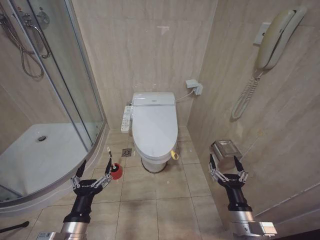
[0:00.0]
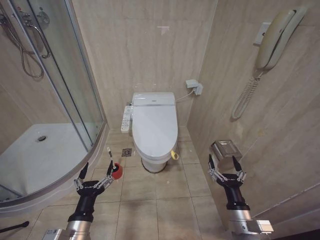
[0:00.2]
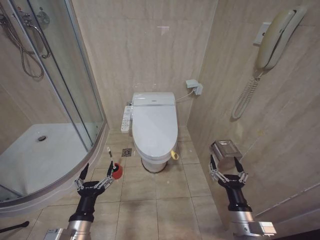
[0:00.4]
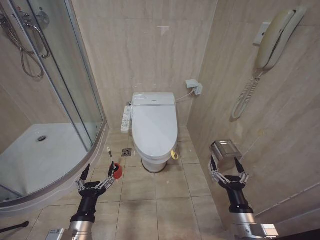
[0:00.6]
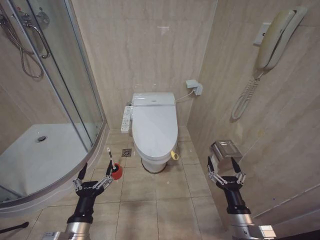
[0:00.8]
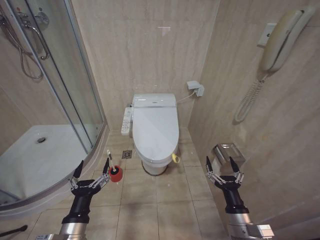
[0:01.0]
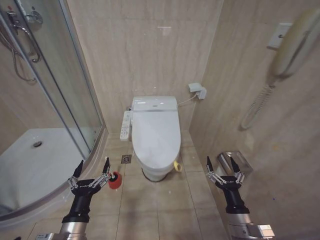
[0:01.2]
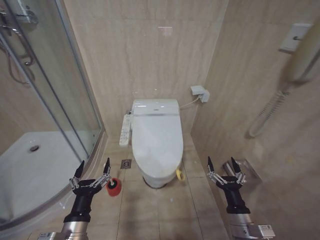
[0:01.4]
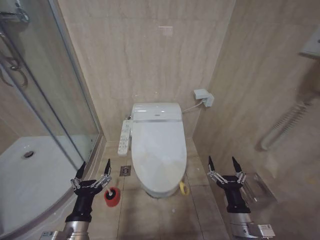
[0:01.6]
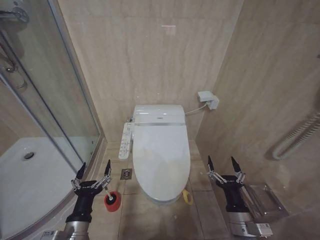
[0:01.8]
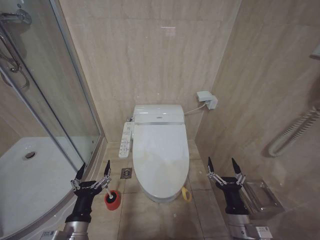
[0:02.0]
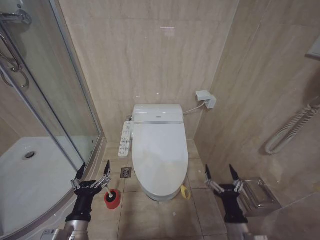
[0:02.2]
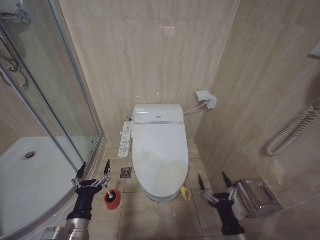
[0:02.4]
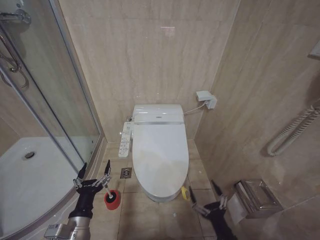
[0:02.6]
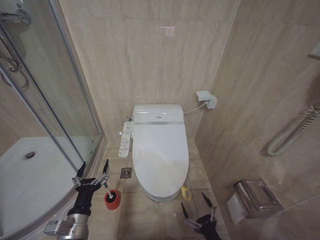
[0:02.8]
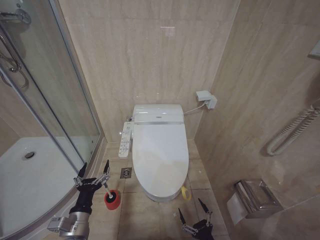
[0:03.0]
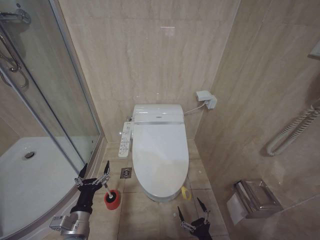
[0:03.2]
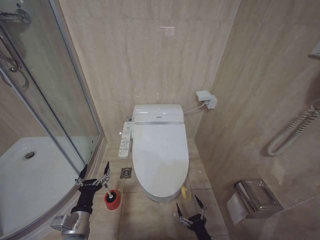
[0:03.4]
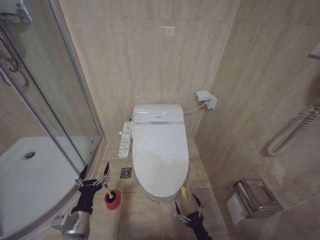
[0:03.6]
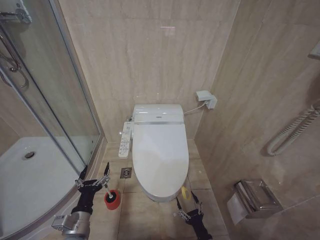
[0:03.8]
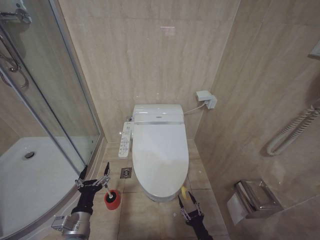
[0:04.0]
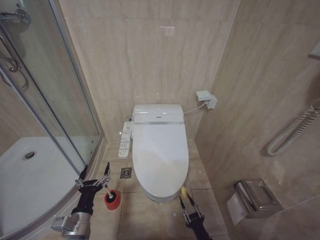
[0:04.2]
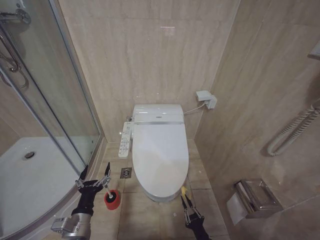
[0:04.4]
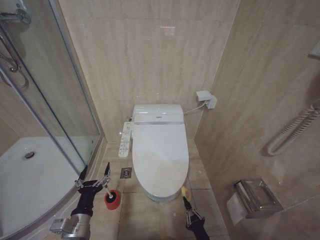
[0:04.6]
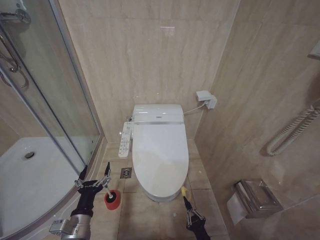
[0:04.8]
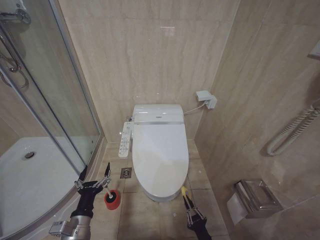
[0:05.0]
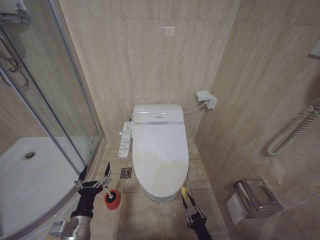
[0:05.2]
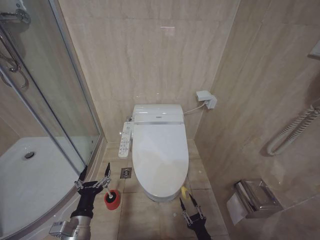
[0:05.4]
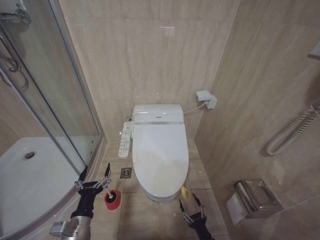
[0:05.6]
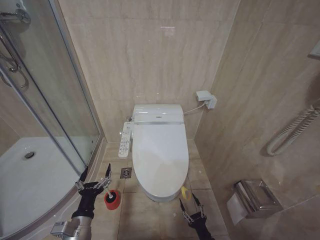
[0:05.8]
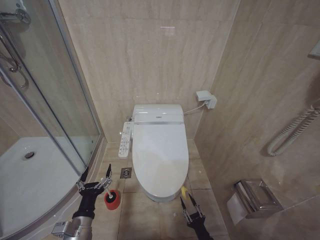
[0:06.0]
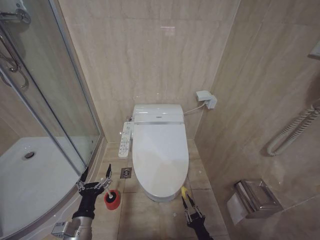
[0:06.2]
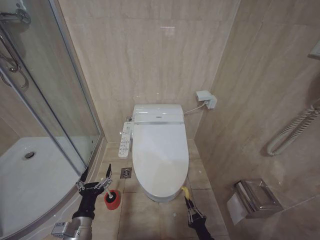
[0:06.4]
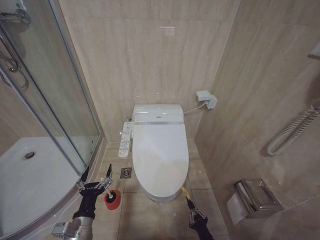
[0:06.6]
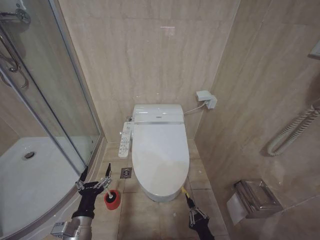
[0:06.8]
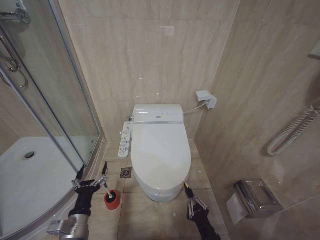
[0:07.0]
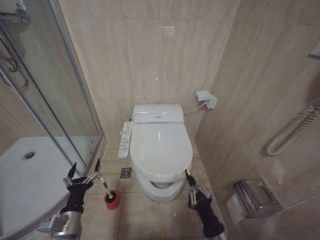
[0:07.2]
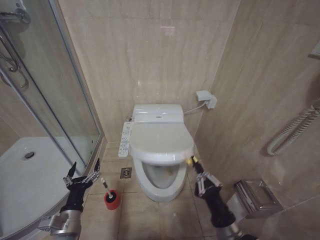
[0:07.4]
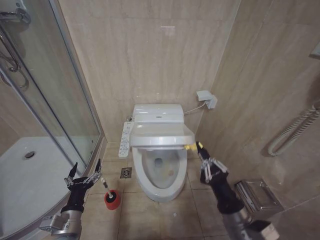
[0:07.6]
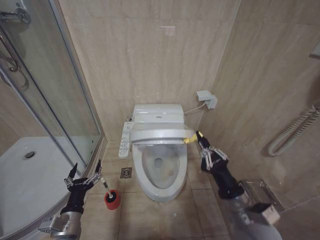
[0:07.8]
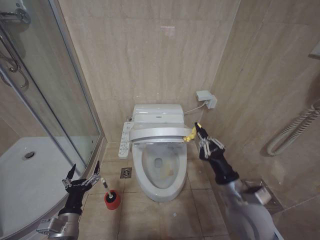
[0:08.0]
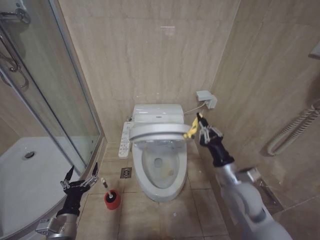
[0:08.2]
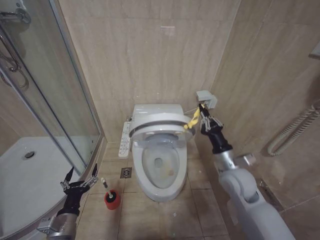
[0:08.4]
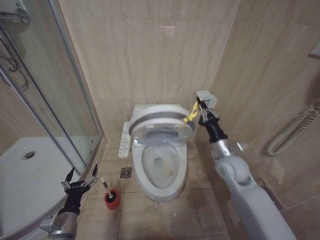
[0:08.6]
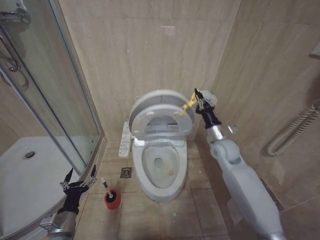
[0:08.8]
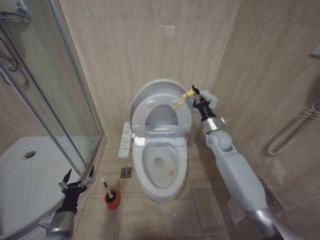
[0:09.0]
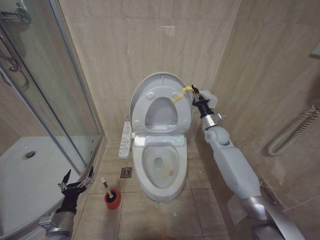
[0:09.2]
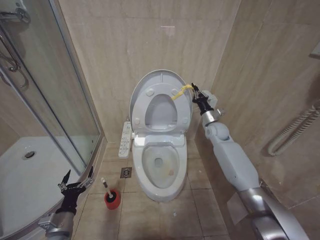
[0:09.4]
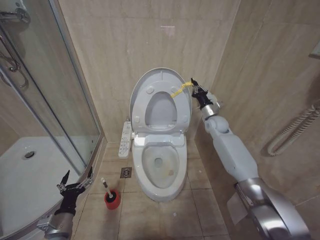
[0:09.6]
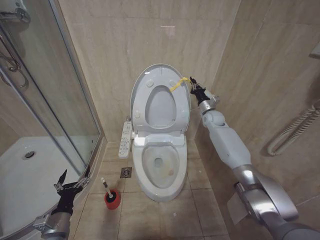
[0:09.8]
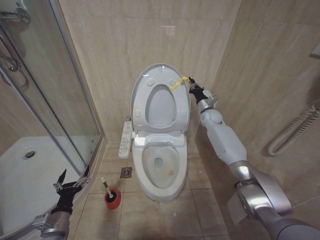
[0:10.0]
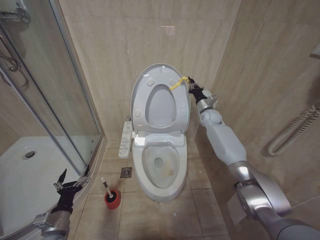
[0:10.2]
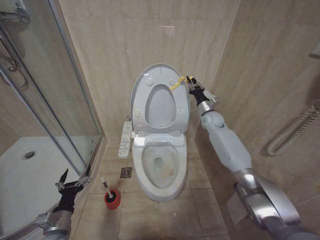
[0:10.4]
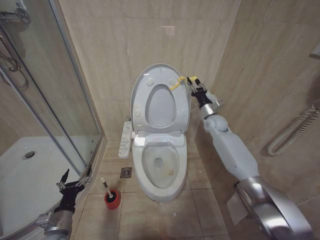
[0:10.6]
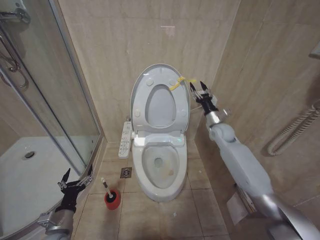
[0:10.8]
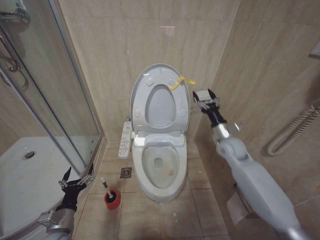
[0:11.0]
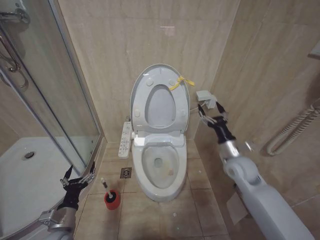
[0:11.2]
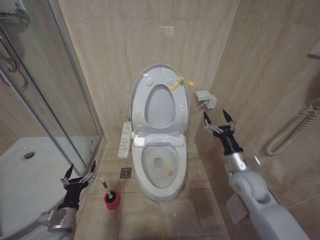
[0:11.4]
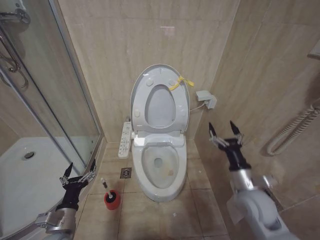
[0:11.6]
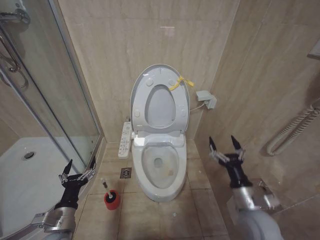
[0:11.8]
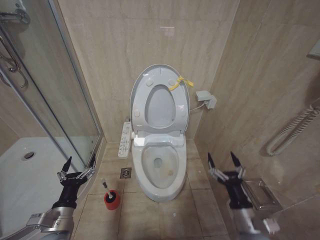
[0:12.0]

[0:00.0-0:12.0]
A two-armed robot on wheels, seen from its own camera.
Task of the whole recording: Open the toilet lid, clean the toilet bowl with a toilet brush, close the toilet lid, and flush.
0:01.6 to 0:03.0: The left gripper ends up about 5 cm from where it was, while the right gripper is displaced downward and backward by about 15 cm.
0:03.0 to 0:04.4: The right gripper shifts some 5 cm downward, and closes up.
0:06.0 to 0:07.6: The right gripper is displaced upward by approximately 25 cm, and closes up.
0:07.6 to 0:09.0: The left gripper moves some 5 cm, while the right gripper heads forward, covering approximately 30 cm.
0:09.0 to 0:10.4: The right gripper travels forward by about 15 cm.
0:10.4 to 0:12.0: The left gripper is displaced upward by some 5 cm. Meanwhile the right gripper is displaced backward by some 40 cm, and opens.

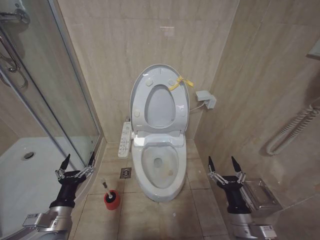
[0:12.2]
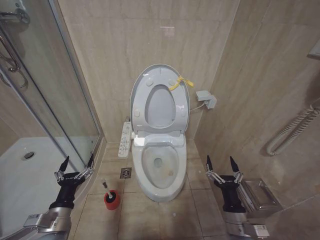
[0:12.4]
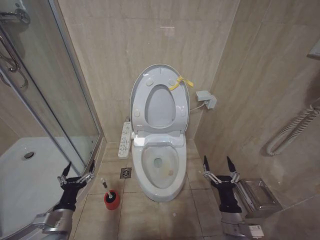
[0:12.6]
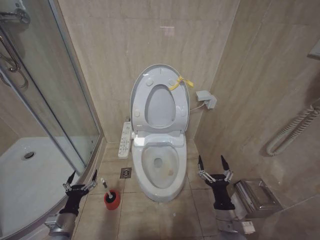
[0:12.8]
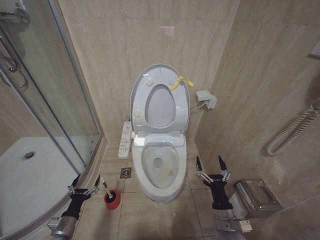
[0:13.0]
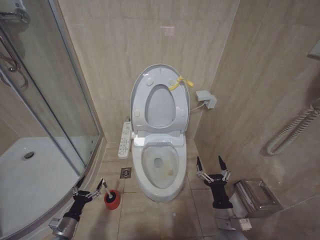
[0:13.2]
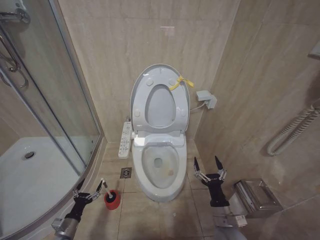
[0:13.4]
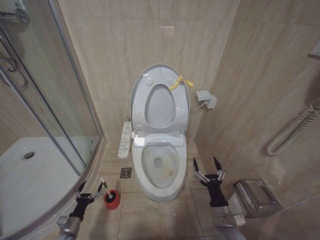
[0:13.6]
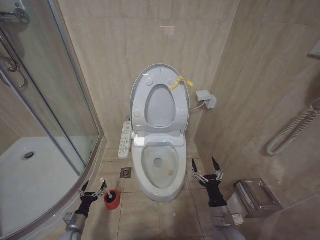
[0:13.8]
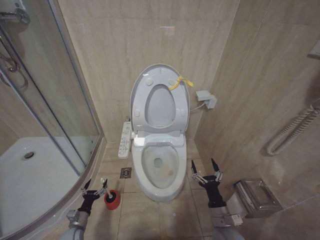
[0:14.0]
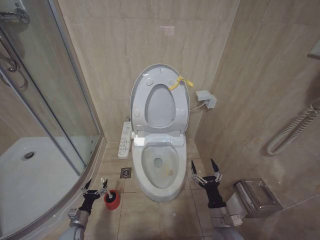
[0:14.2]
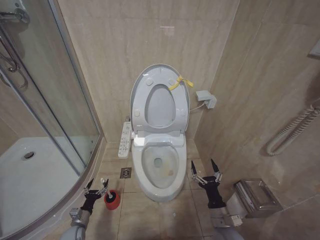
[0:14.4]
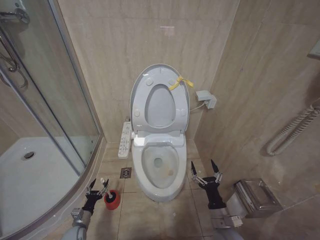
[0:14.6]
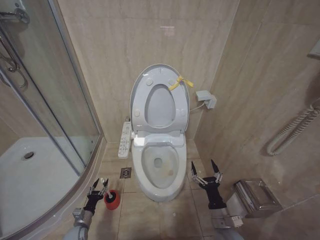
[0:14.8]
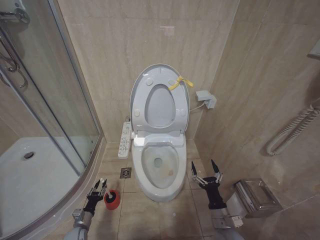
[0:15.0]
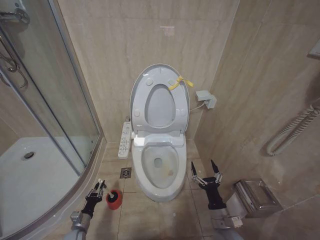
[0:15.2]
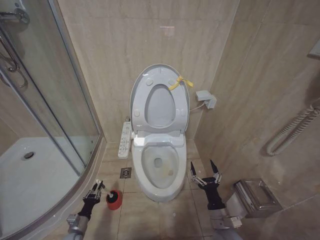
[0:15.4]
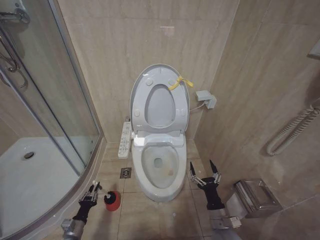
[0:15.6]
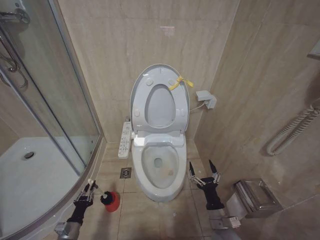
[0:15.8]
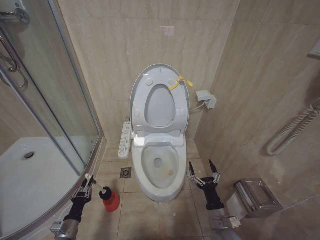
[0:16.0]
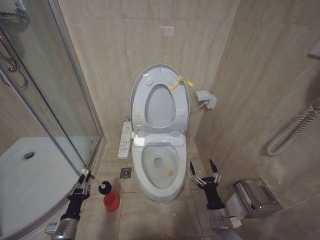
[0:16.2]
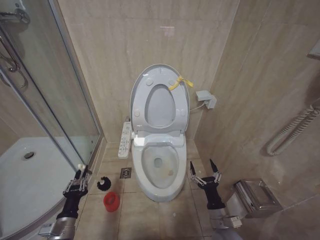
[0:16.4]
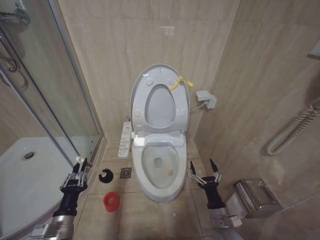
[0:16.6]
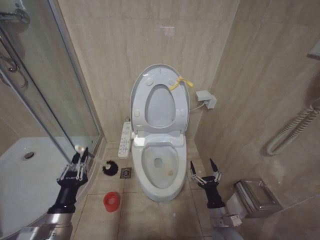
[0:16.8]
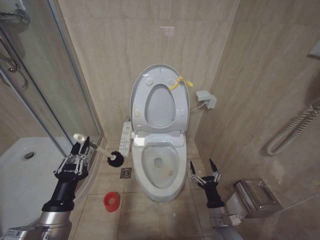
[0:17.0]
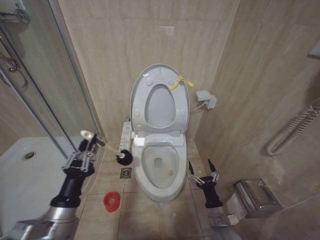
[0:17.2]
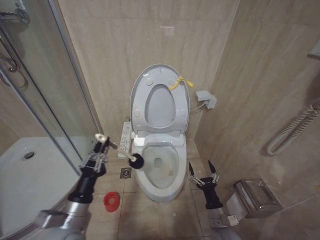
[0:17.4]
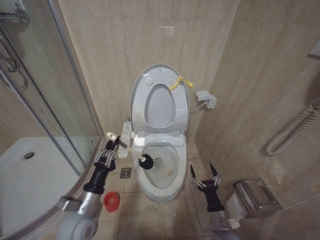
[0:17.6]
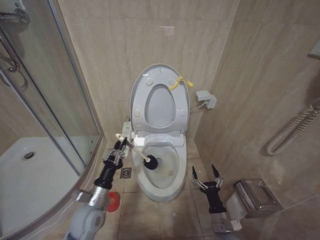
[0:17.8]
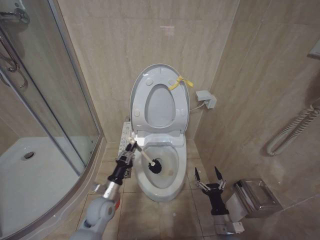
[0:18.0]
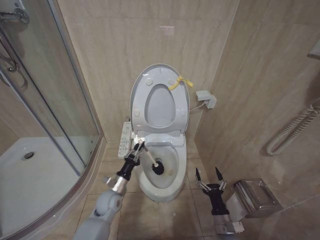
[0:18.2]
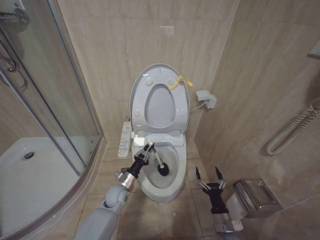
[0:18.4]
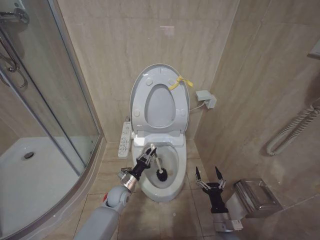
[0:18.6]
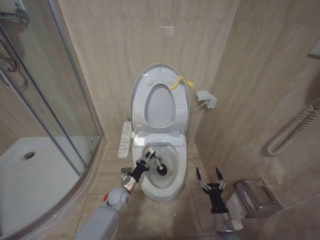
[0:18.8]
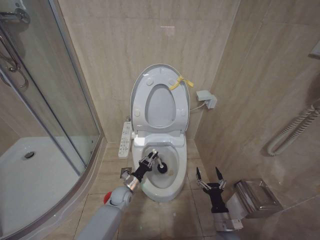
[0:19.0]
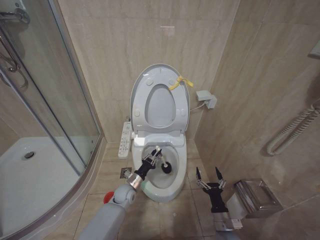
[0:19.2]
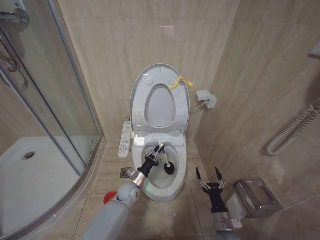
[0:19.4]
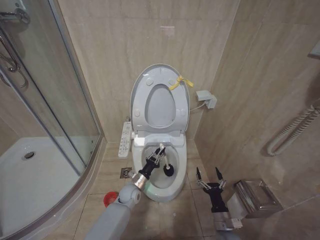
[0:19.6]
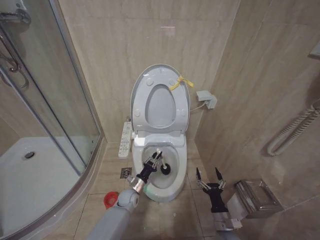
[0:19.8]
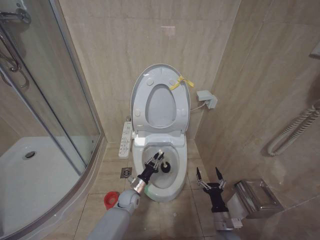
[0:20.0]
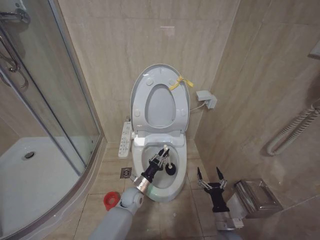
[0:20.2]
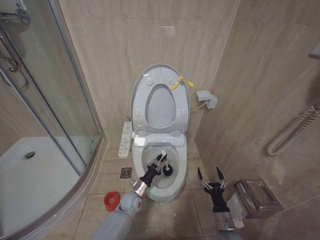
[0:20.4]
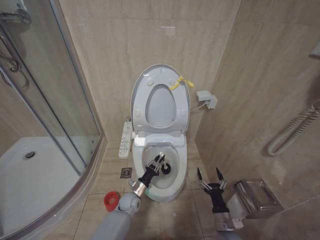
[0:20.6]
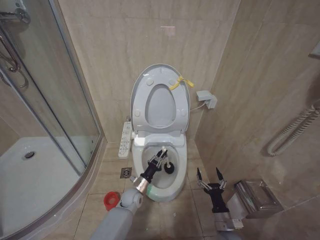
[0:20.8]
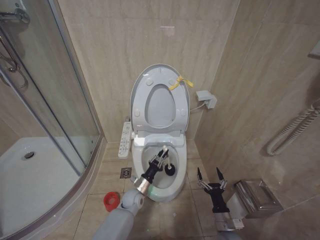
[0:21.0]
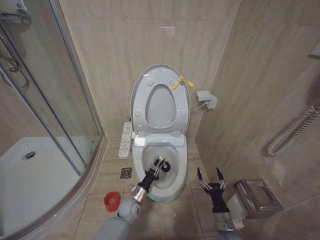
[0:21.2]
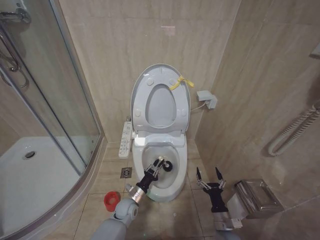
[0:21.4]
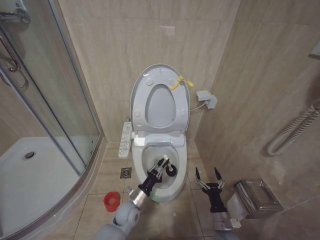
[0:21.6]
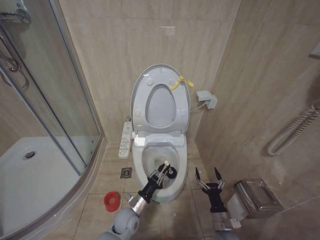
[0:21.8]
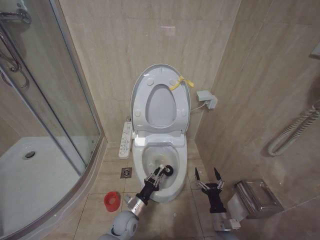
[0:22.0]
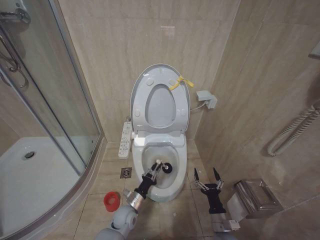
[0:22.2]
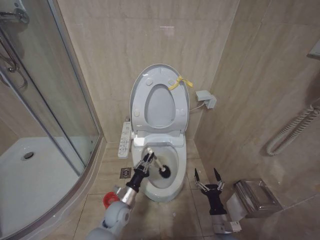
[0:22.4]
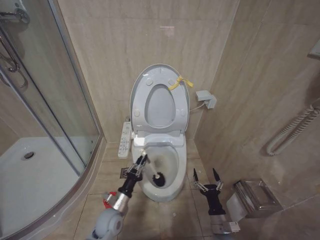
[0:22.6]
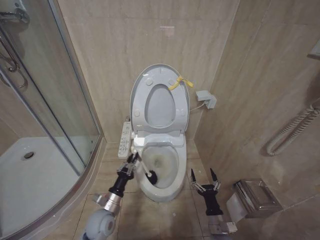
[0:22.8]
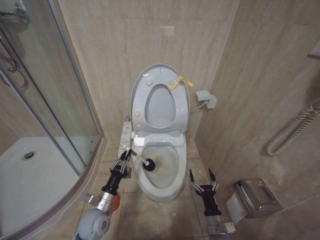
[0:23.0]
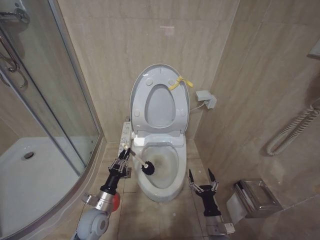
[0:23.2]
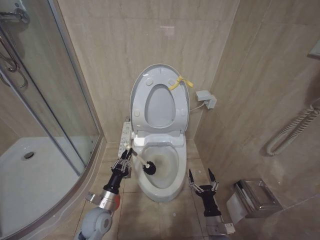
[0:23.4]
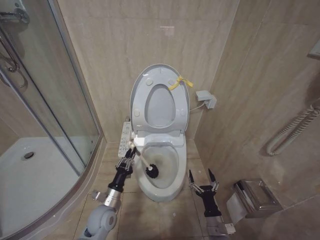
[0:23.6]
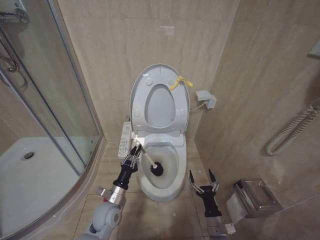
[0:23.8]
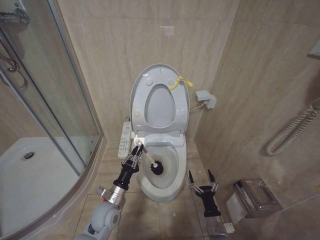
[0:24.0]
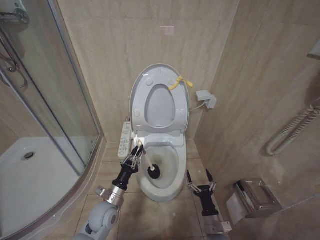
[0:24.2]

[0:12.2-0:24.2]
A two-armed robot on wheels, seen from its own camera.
Task of the whole recording: Open the toilet lid, clean the toilet bowl with a toilet brush, close the toilet lid, and flush.
0:12.2 to 0:13.8: The right gripper shifts some 5 cm downward. Meanwhile the left gripper shifts about 25 cm downward.
0:13.8 to 0:15.2: The left gripper closes up.
0:15.2 to 0:16.6: The left gripper heads upward and backward, covering about 25 cm.
0:16.6 to 0:18.2: The left gripper shifts about 20 cm forward and to the right.
0:18.2 to 0:19.8: The left gripper travels downward, to the right and forward by some 15 cm.
0:19.8 to 0:21.2: There are only small adjustments of the grippers.
0:21.2 to 0:22.6: The left gripper moves upward, backward and to the left, about 10 cm.
0:22.6 to 0:24.2: The left gripper ends up roughly 5 cm from where it was.
